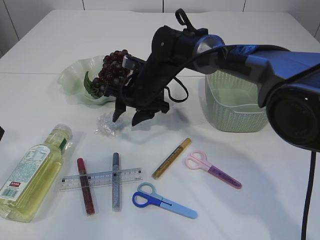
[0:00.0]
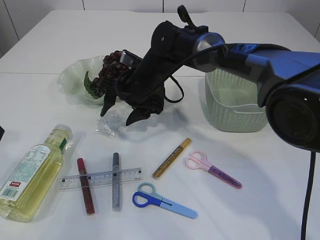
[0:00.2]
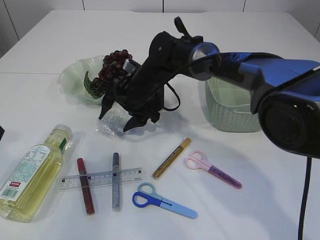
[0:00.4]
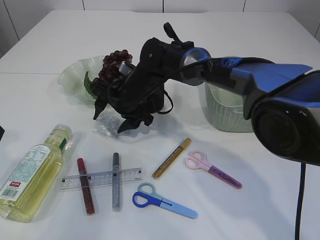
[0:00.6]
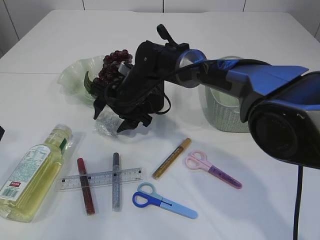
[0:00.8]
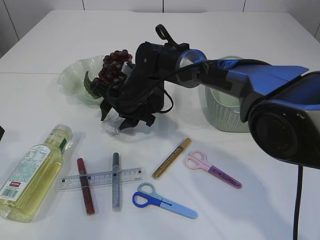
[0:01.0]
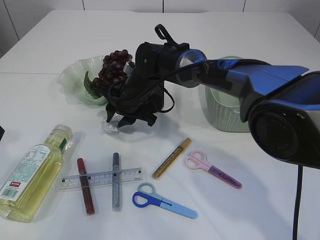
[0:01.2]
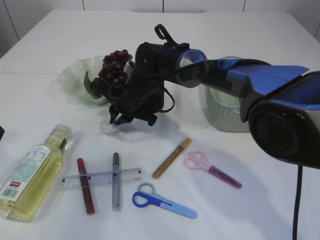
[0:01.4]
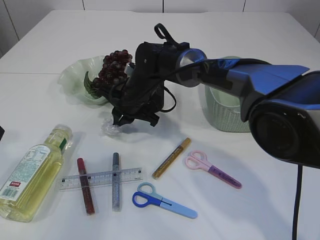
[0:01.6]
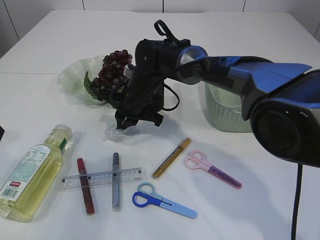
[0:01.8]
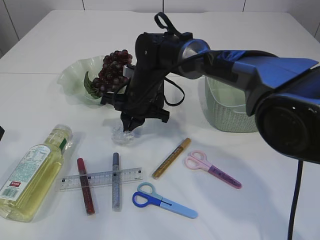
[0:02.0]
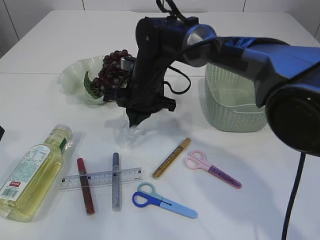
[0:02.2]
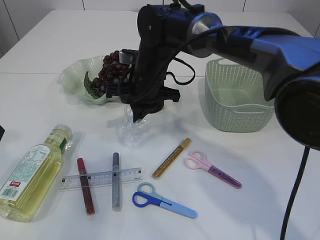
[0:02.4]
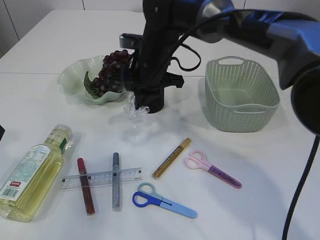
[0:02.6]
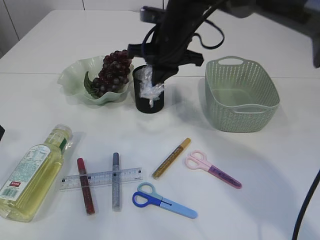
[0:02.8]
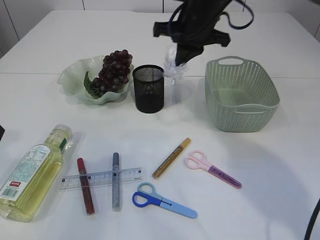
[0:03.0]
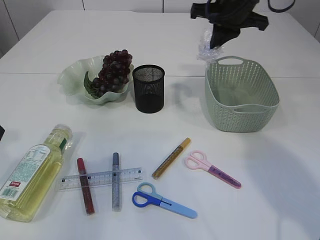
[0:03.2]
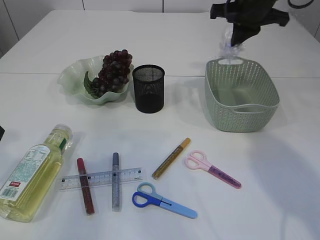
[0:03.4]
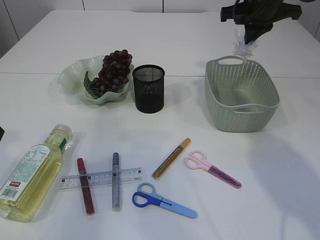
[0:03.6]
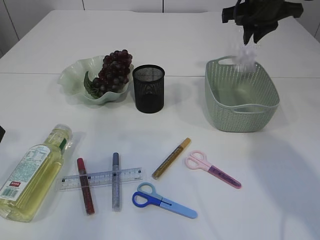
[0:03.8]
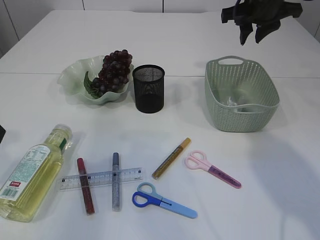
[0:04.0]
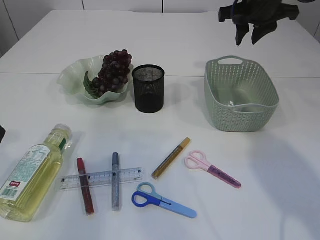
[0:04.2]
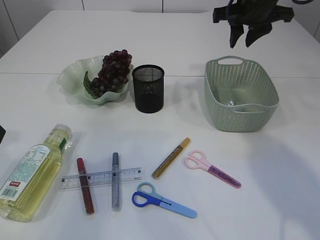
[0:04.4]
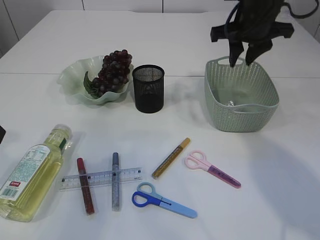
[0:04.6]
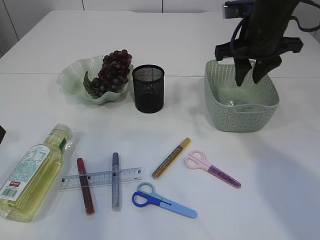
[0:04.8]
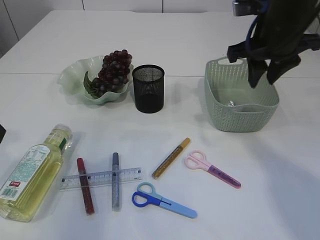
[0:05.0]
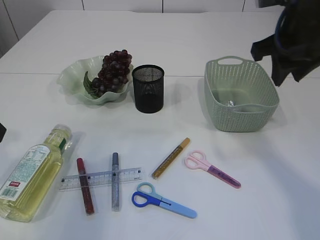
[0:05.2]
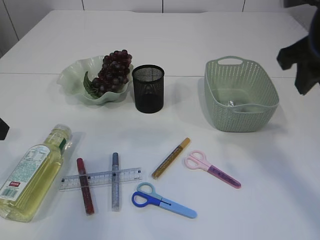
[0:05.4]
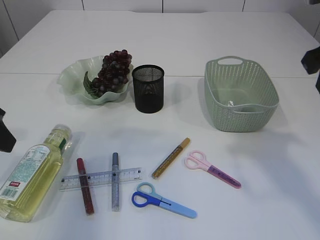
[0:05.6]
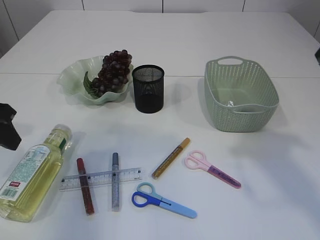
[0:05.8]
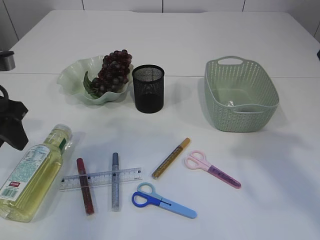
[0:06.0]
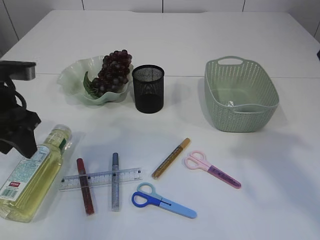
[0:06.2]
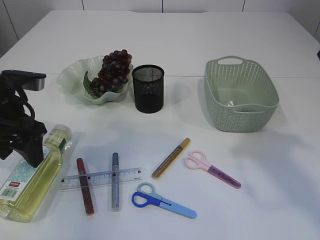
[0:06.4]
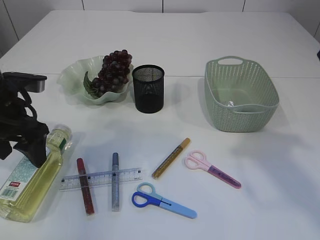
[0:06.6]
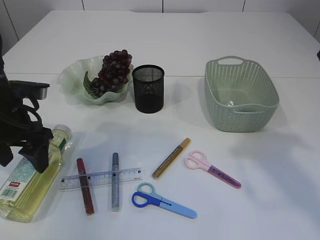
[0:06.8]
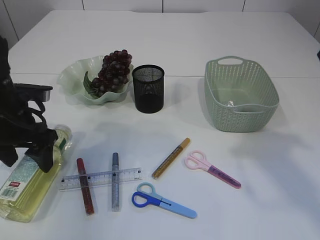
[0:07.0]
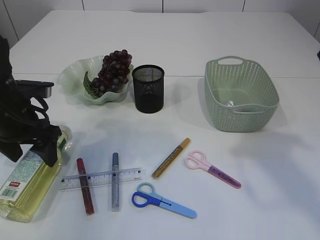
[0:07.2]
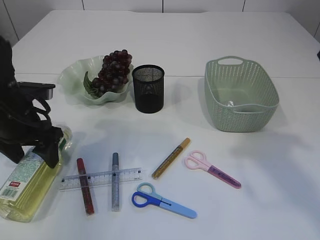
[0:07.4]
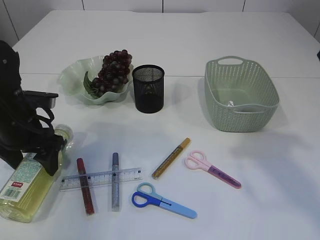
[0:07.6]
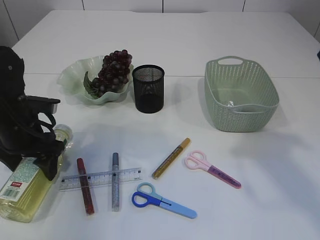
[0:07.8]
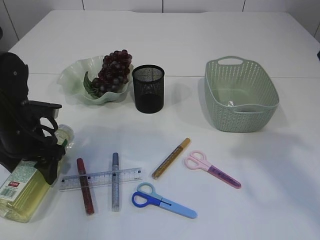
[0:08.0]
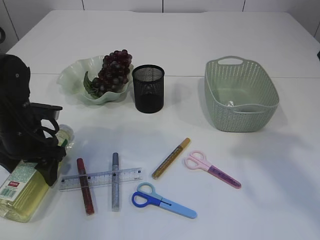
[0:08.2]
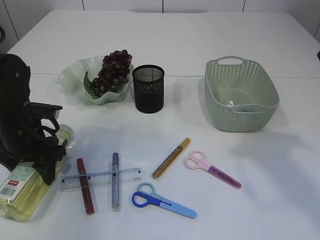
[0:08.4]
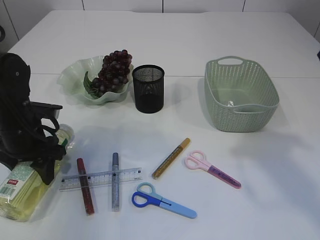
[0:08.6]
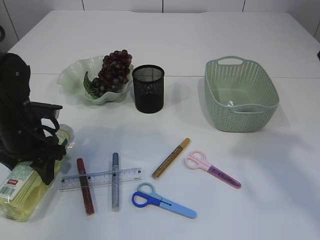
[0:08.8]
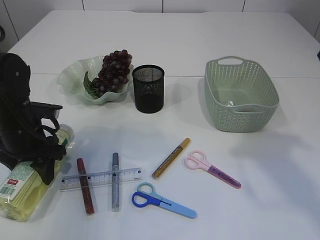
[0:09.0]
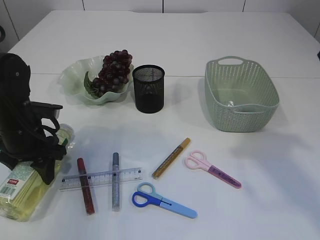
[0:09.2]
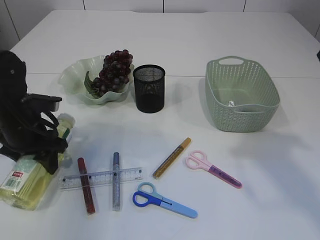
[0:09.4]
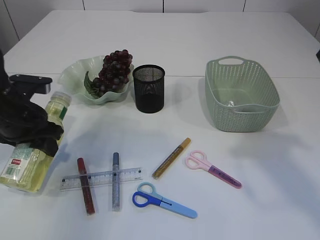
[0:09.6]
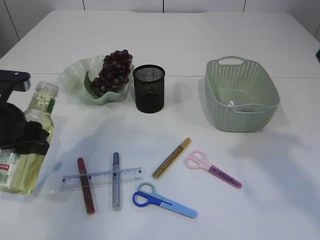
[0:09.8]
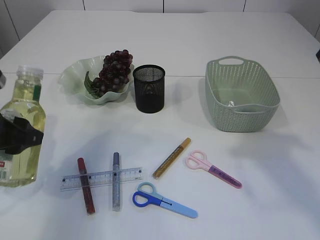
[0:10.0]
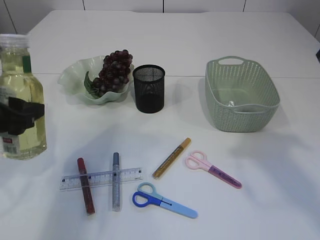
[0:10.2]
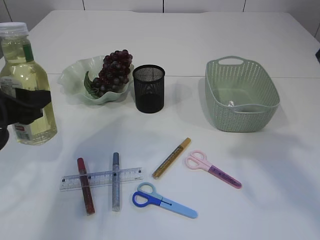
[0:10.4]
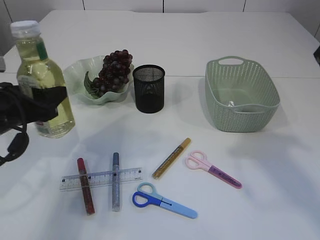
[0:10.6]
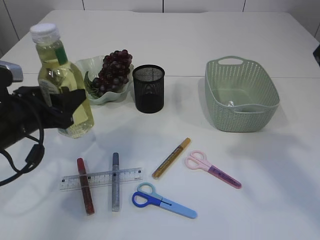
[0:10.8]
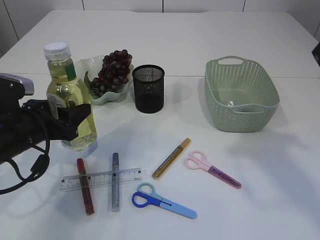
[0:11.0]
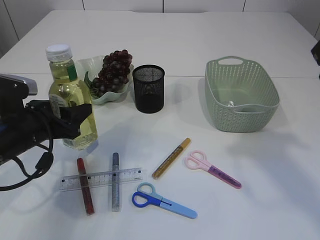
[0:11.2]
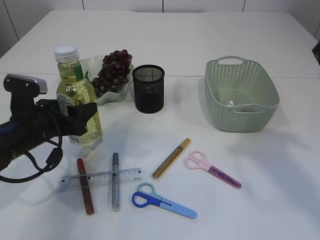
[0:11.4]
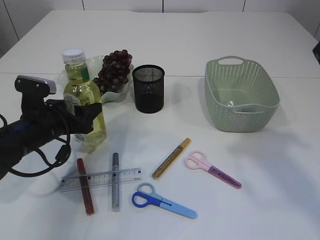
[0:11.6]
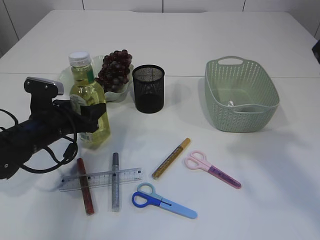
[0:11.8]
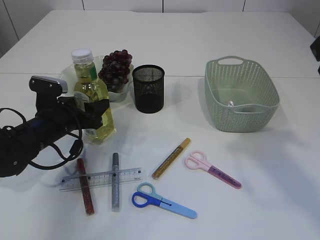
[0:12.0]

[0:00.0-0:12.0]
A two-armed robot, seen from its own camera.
Step, 0:00.0 to 0:02.4: Pick up the plastic.
Step, 0:02.6 to 0:04.2: Place the plastic in the basket.
Step, 0:04.4 to 0:09.6: Pick up the bottle with the left arm.
0:00.0 to 0:01.6: The right gripper closes up.
0:01.6 to 0:03.0: The right gripper shifts approximately 20 cm upward and to the right.
0:03.0 to 0:04.4: The right gripper heads to the right, covering some 10 cm, and opens.
0:04.4 to 0:06.0: The left gripper moves forward, roughly 5 cm; the right gripper goes some 25 cm backward.
0:06.0 to 0:07.6: The left gripper moves downward, some 10 cm, and opens its fingers.
0:07.6 to 0:09.0: The grippers stay close to where they were, moving slightly.
0:09.0 to 0:10.4: The left gripper moves upward and backward, roughly 10 cm.
0:10.4 to 0:12.0: The left gripper travels downward and forward by approximately 15 cm.

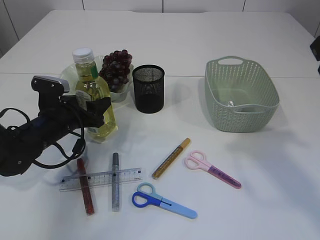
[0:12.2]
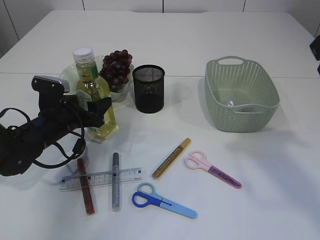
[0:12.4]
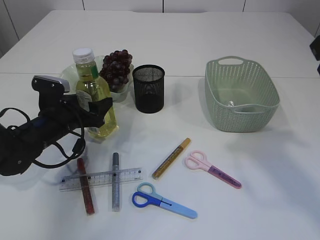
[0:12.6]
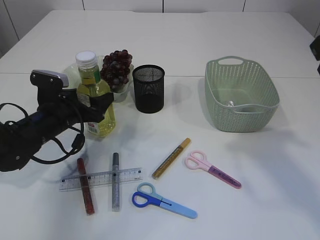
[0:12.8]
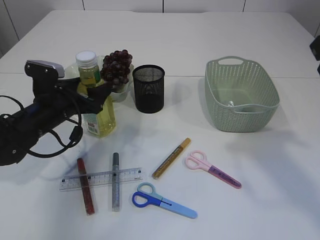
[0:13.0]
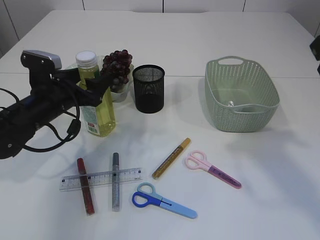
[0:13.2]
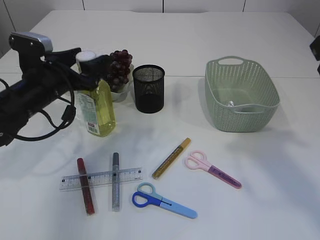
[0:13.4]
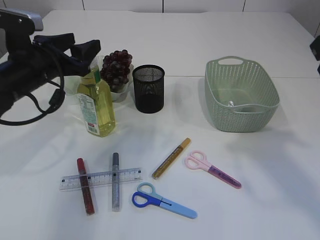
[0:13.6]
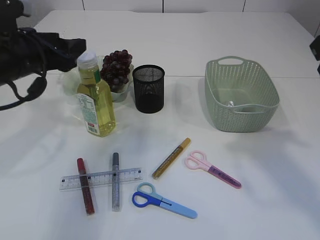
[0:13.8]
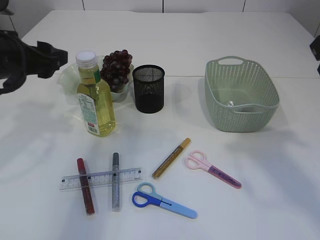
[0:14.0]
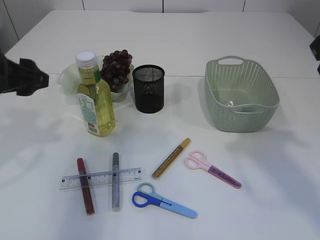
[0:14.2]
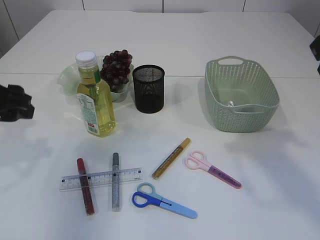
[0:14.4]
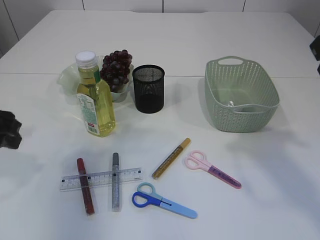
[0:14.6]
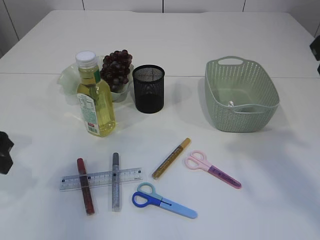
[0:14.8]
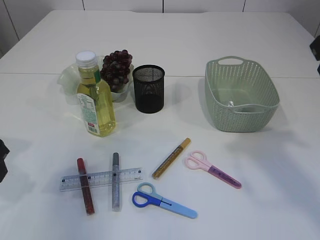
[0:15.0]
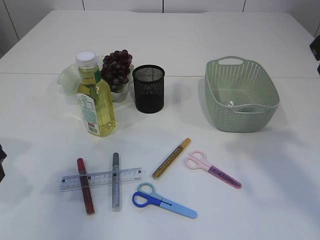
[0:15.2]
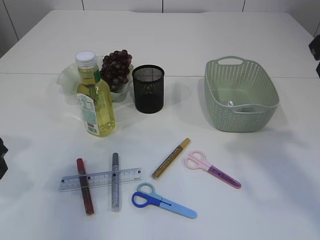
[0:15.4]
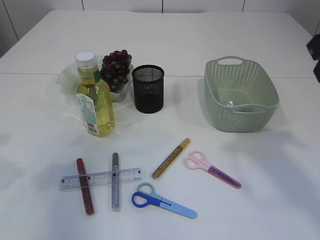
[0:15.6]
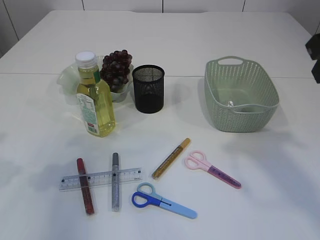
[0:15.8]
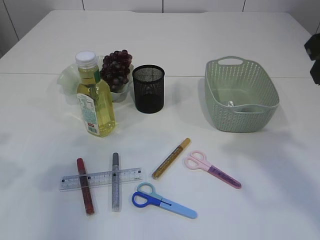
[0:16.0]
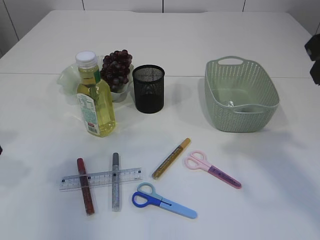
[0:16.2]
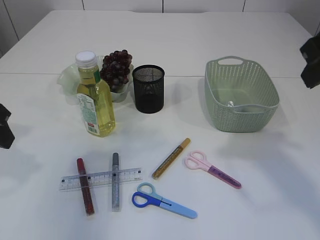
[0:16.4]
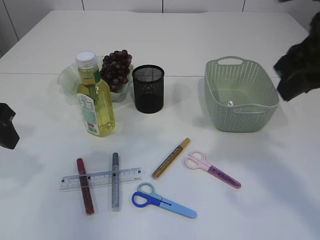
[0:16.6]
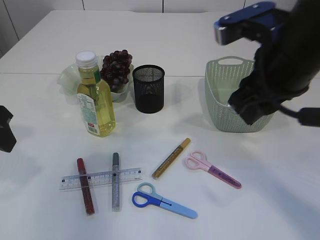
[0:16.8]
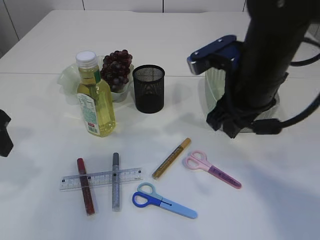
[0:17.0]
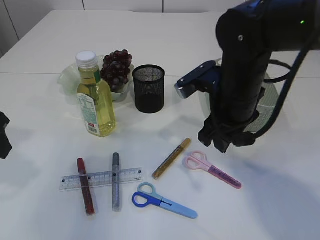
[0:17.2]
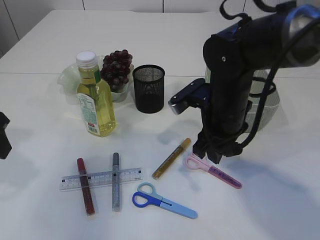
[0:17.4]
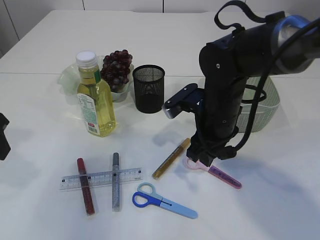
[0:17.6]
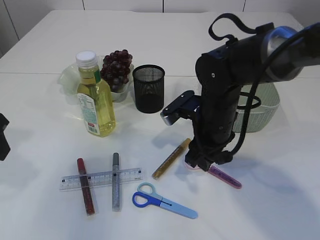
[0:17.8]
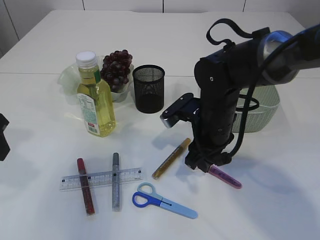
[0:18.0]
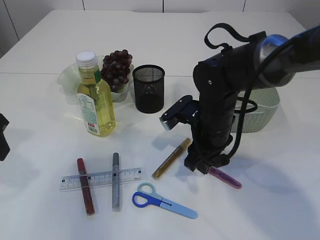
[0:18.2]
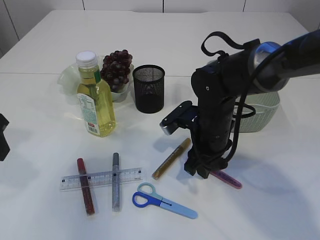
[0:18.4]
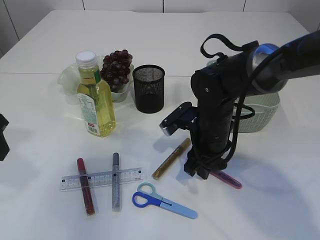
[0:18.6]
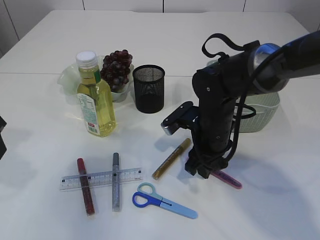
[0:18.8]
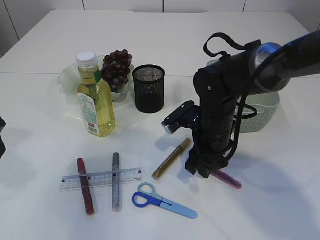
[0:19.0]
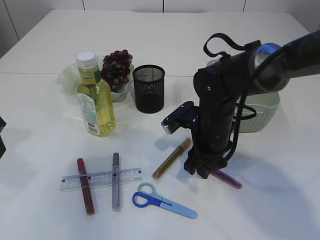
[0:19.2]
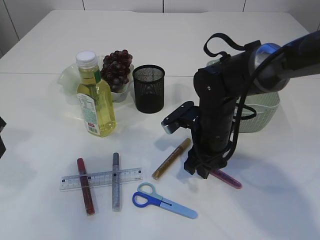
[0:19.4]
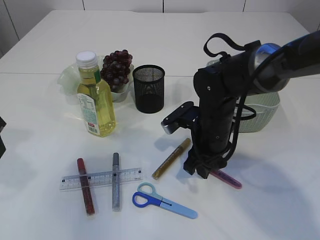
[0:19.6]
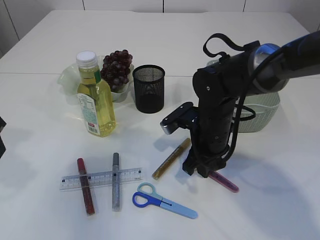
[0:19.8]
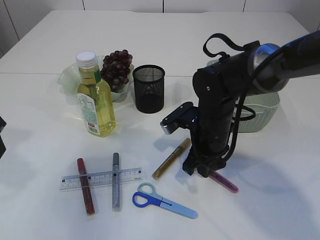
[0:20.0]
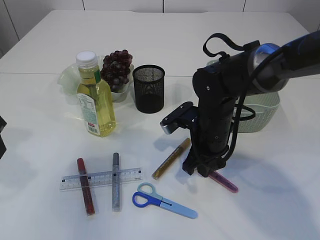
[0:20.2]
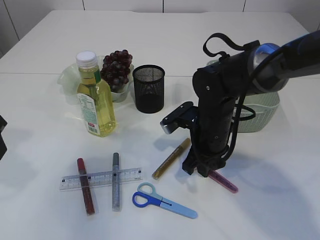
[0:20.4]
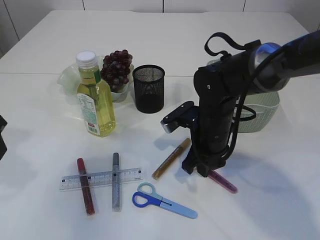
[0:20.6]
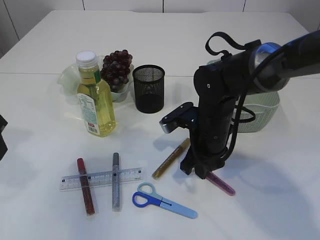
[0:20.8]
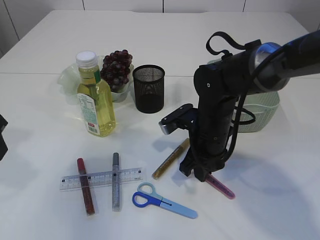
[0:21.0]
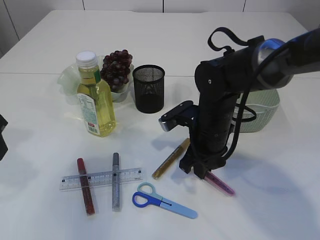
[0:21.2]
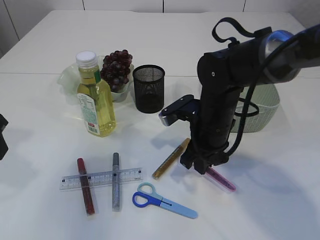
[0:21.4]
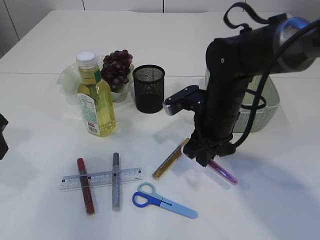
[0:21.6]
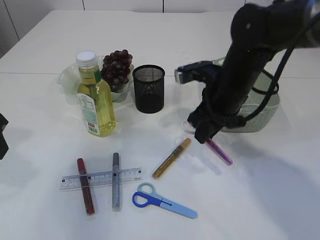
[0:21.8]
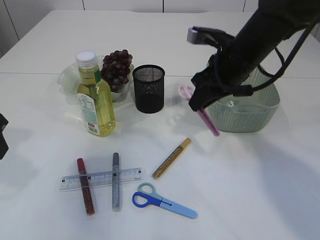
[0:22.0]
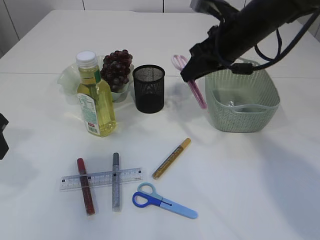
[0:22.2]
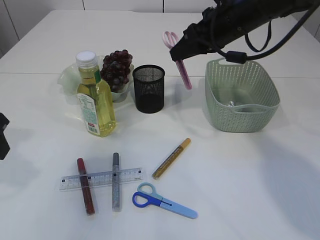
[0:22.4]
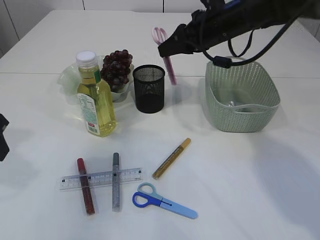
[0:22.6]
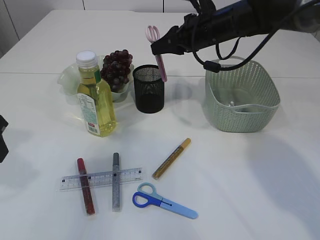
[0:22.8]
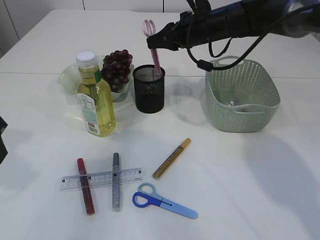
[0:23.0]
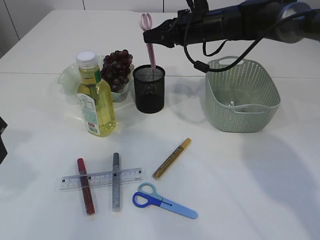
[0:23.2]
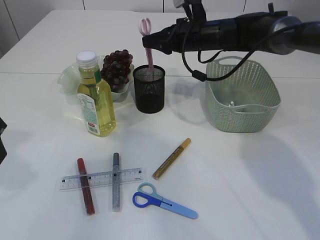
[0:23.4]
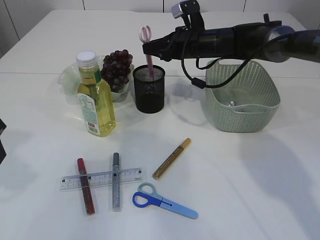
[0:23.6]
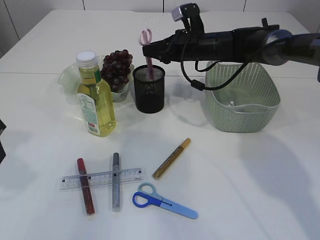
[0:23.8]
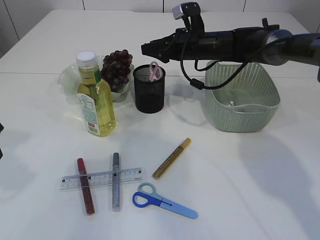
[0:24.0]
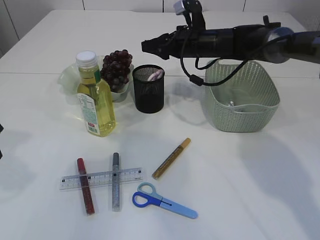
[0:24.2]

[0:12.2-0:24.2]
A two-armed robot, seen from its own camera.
Step, 0:13.8 to 0:21.6: pick up the pink scissors.
0:12.2 to 0:13.8: The left gripper shifts some 15 cm upward.
0:13.8 to 0:15.2: The left gripper is displaced backward by roughly 10 cm.
0:15.2 to 0:16.6: The grippers stay close to where they were, moving slightly.
0:16.6 to 0:18.2: The right gripper goes roughly 25 cm downward, forward and to the left.
0:18.2 to 0:19.8: The grippers make only small movements.
0:19.8 to 0:21.2: The two grippers keep their place.
0:21.2 to 0:22.6: The right gripper moves upward and forward, about 20 cm.
0:22.6 to 0:24.2: The right gripper travels forward and downward by approximately 10 cm.
